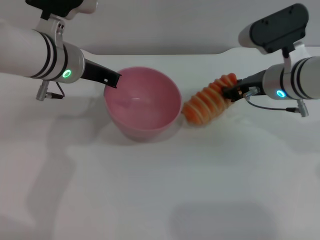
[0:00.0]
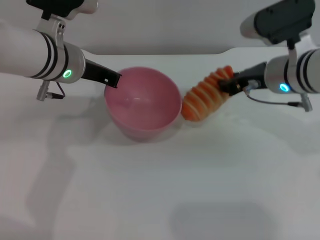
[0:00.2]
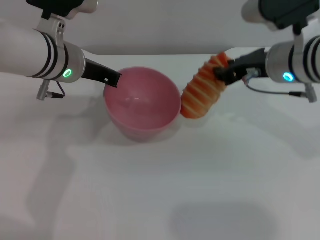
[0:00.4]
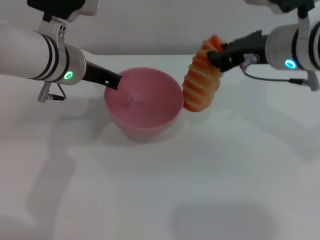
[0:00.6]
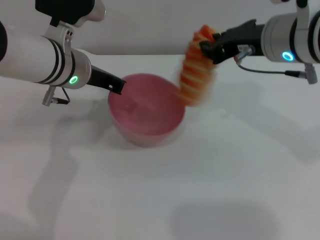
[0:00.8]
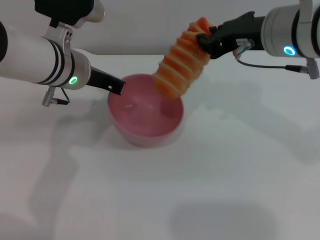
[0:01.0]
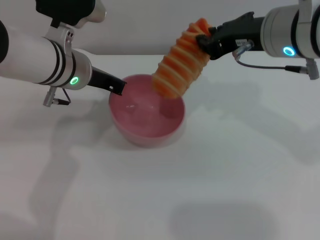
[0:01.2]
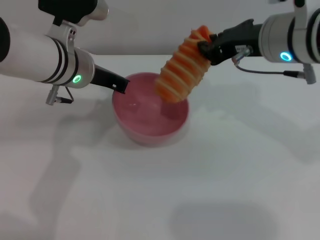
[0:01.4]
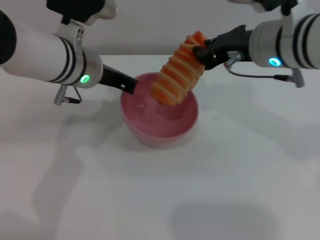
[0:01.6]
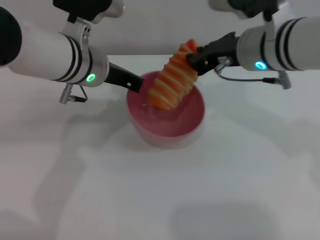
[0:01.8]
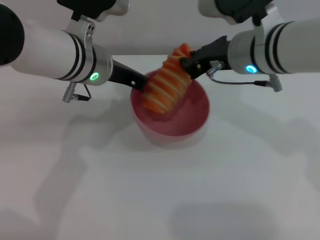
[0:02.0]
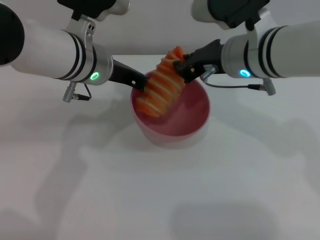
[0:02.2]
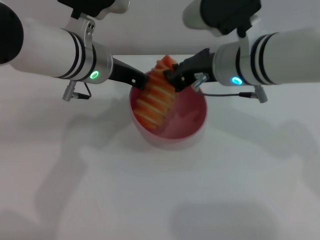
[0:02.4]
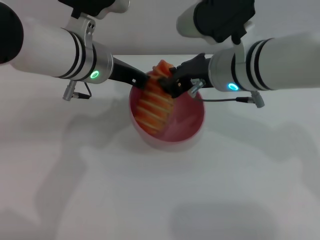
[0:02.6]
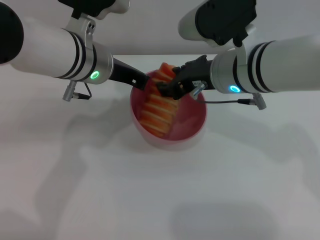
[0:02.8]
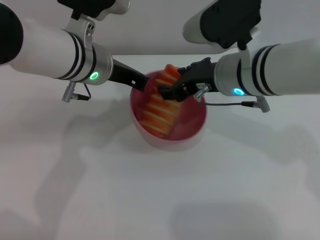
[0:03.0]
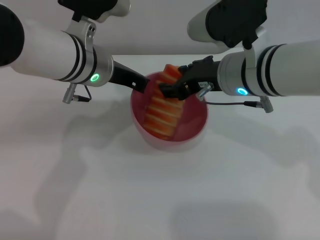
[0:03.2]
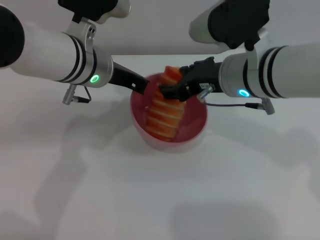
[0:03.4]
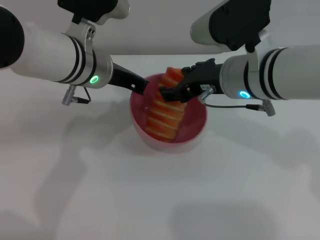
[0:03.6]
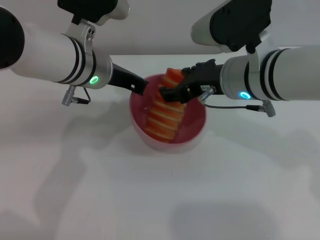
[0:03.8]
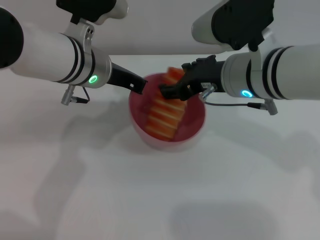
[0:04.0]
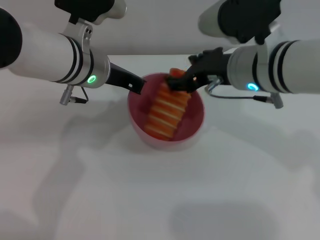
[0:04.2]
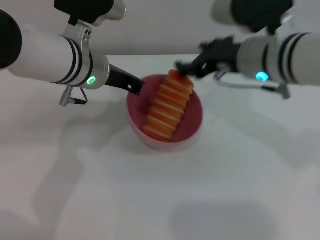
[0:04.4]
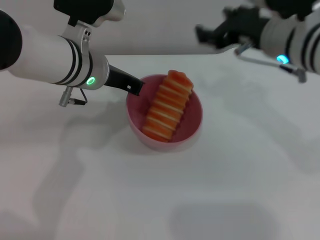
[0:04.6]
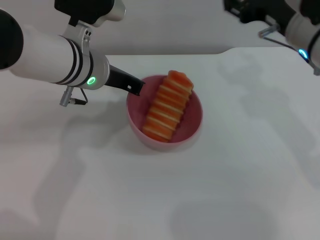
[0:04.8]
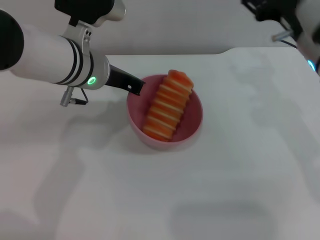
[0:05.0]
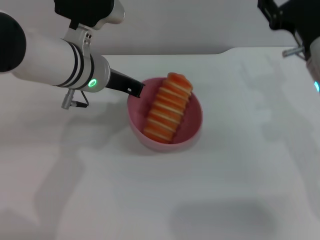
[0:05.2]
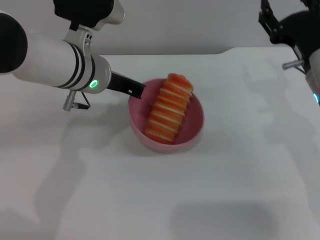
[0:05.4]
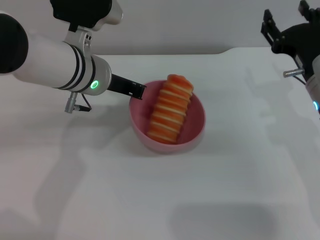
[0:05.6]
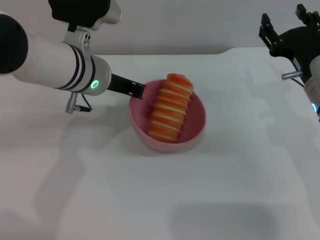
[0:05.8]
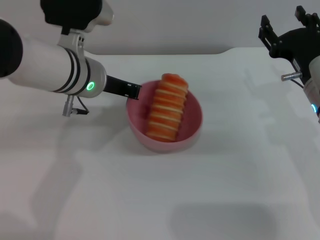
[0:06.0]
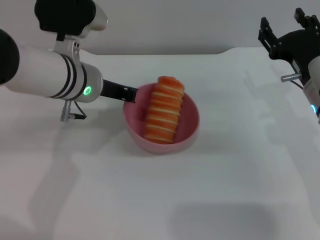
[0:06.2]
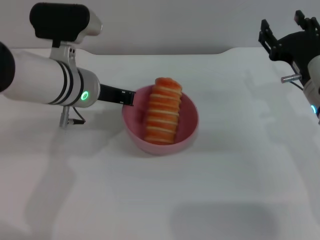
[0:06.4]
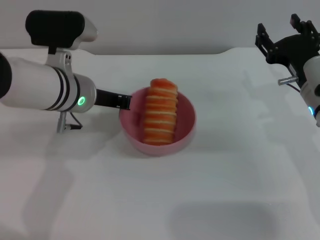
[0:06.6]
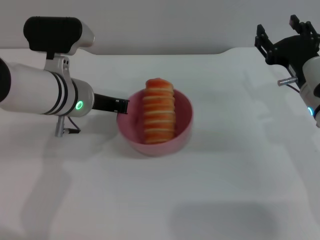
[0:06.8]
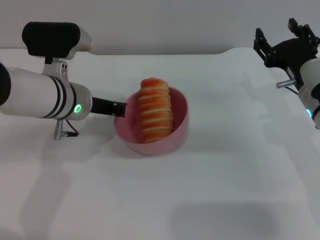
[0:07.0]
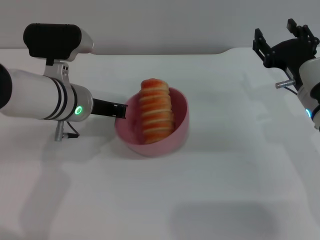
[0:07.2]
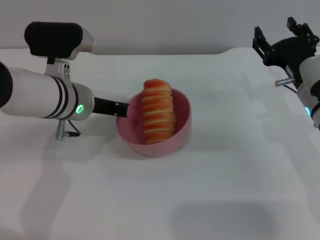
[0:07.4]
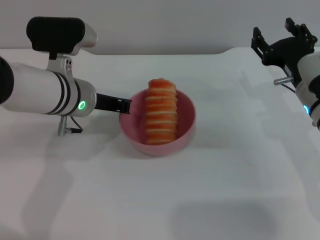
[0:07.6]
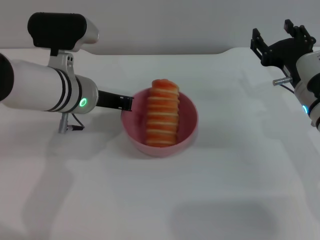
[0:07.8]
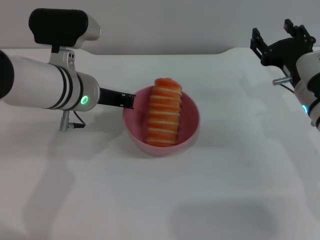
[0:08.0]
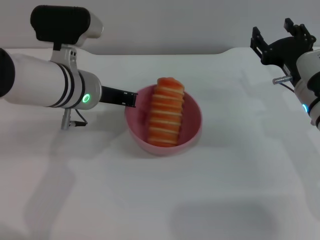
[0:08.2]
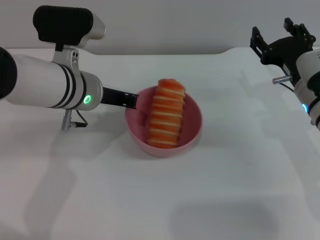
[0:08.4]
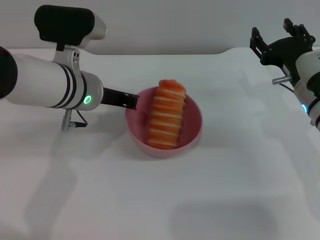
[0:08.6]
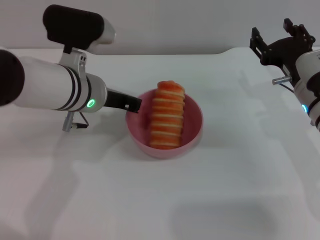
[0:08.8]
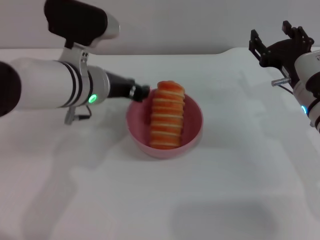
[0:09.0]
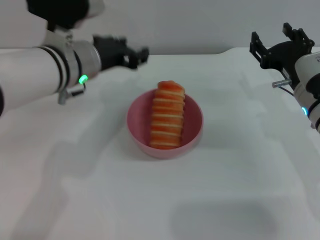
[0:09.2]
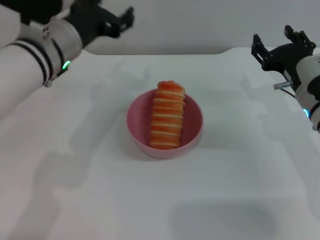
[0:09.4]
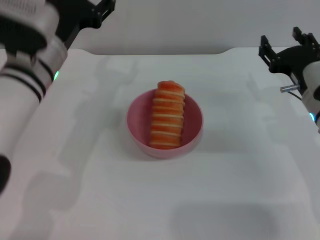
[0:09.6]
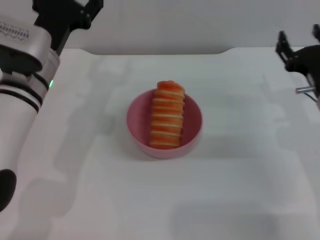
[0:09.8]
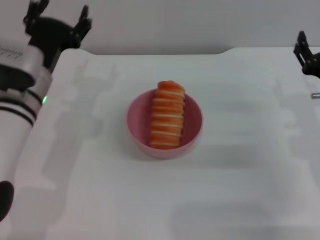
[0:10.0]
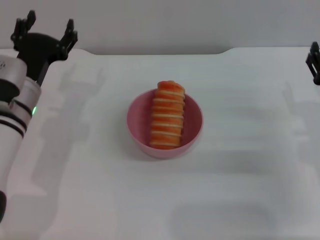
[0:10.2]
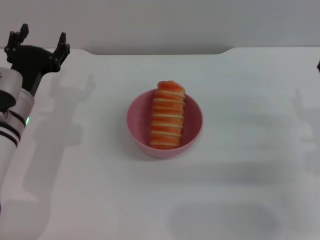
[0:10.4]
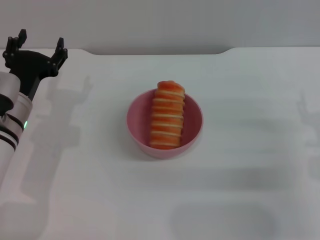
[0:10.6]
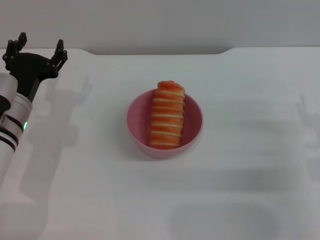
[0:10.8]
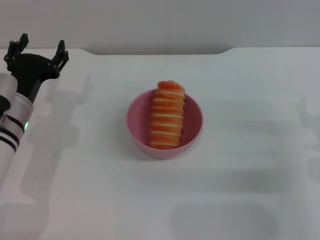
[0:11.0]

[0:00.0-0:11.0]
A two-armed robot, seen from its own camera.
Task of the whole recording: put the bread into the pink bowl and pour it out repeatedly.
Step, 0:01.0 to 0:04.4: Place the bread into the bowl.
Step, 0:04.6 to 0:09.0: Place the bowl on the table.
0:00.0 to 0:01.6: The right gripper travels upward by some 10 cm.
0:01.6 to 0:03.2: The right gripper opens.
0:03.2 to 0:04.8: The right gripper heads to the right, covering roughly 10 cm.
0:04.8 to 0:06.2: The right gripper is displaced downward by approximately 10 cm.
0:06.2 to 0:07.8: The grippers stay close to where they were, moving slightly.
0:07.8 to 0:09.4: The left gripper opens up.
0:09.4 to 0:11.0: The left gripper moves downward and to the left, some 15 cm. The right gripper travels backward and to the right by about 10 cm.
